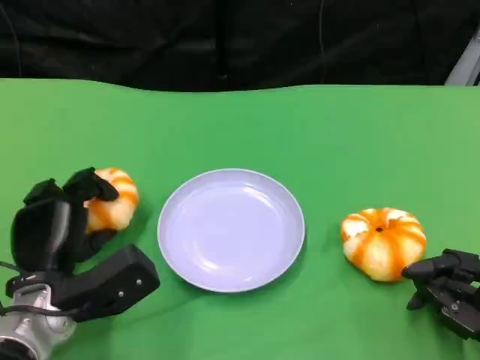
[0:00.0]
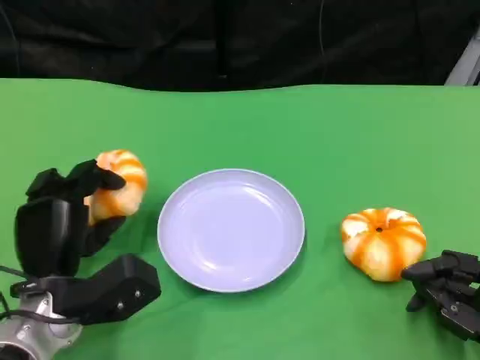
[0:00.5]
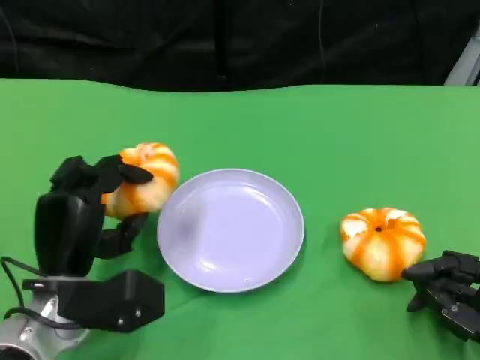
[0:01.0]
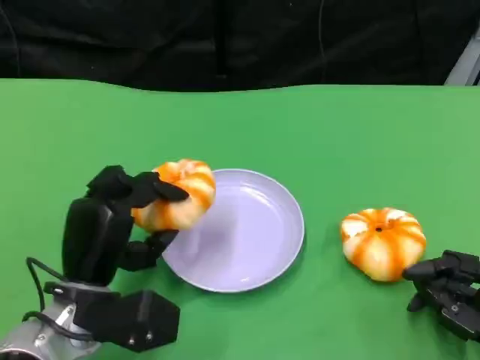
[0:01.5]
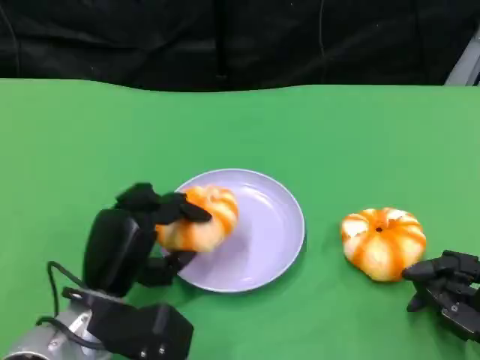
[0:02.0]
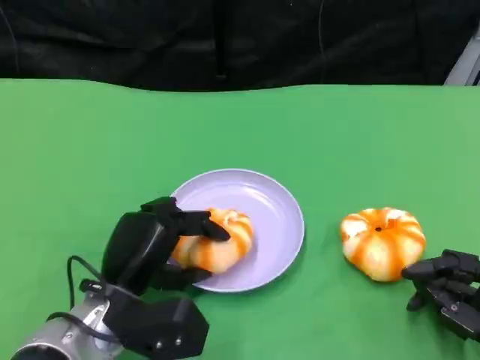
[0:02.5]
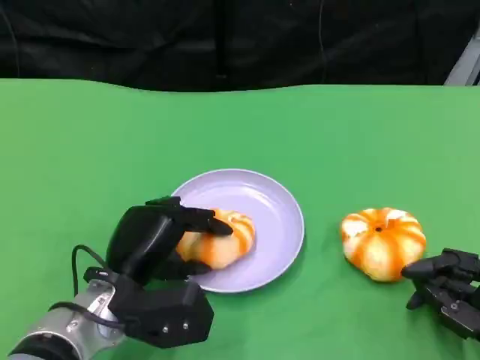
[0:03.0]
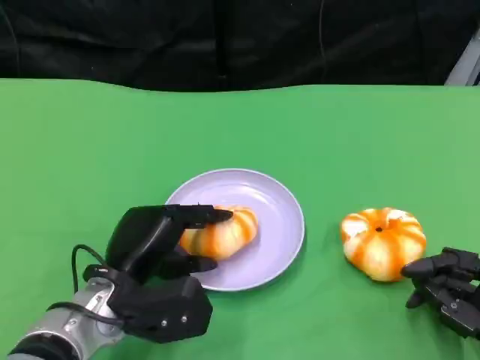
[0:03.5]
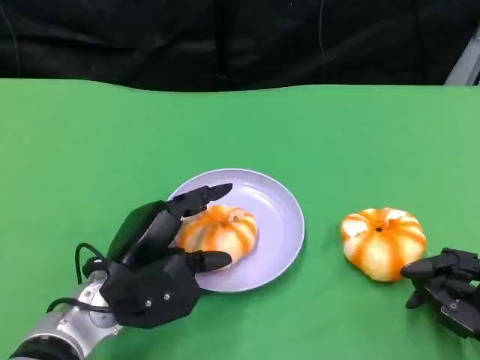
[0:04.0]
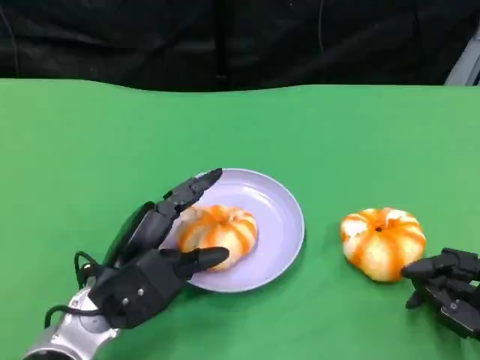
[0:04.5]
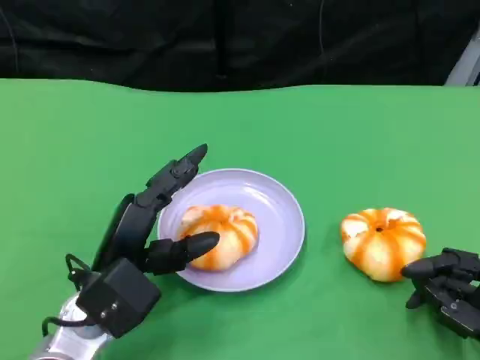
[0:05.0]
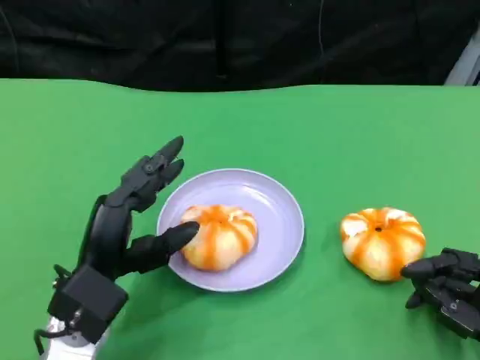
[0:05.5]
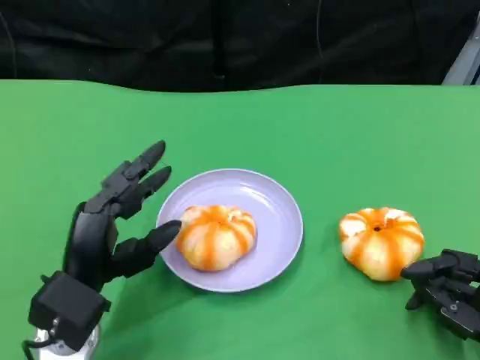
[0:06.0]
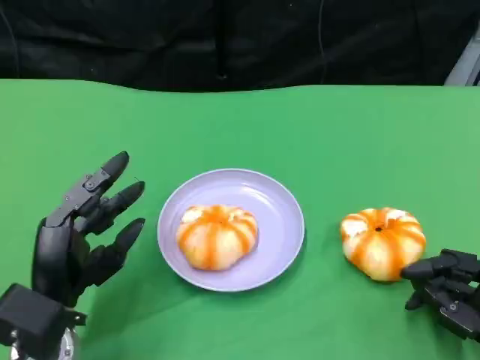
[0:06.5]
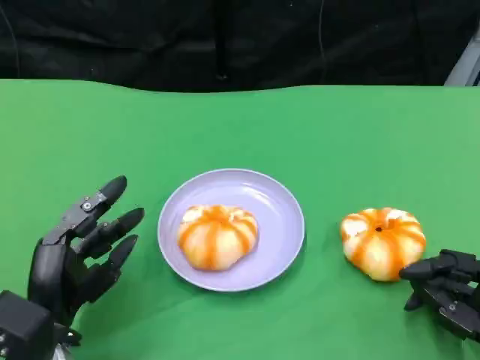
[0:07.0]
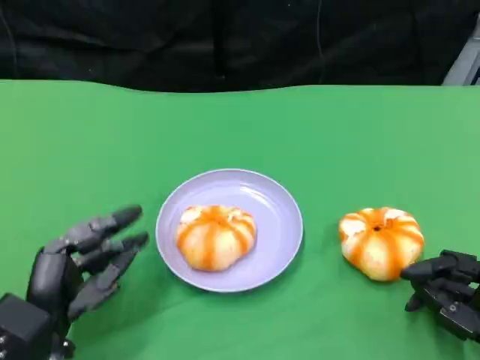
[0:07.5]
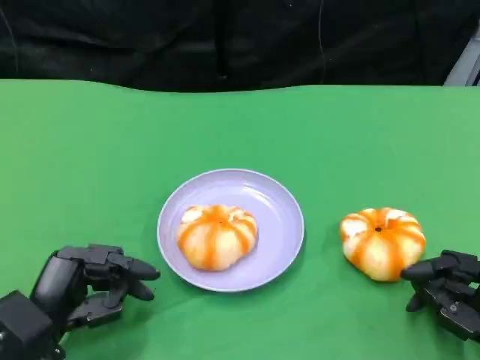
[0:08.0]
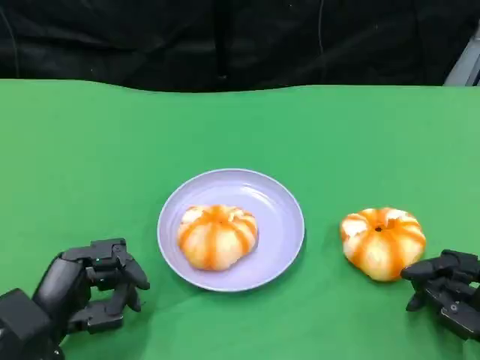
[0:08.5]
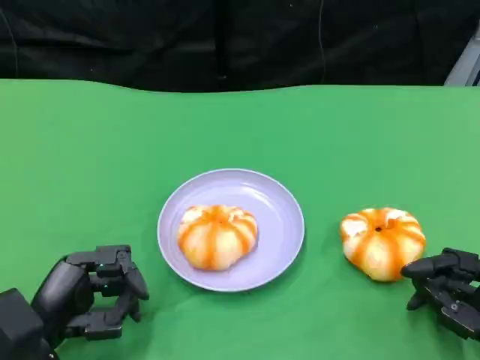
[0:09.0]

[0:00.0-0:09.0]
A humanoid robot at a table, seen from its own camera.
Task of the whole recording: Grasp the bread from the table and place it into the plate.
0:00.0 to 0:02.0: The left hand changes place by approximately 5 cm.
0:04.5 to 0:07.0: The left hand heads to the left, covering approximately 5 cm.

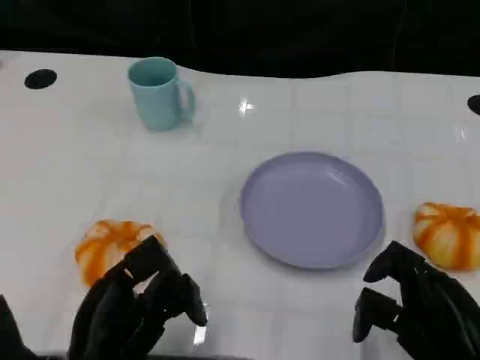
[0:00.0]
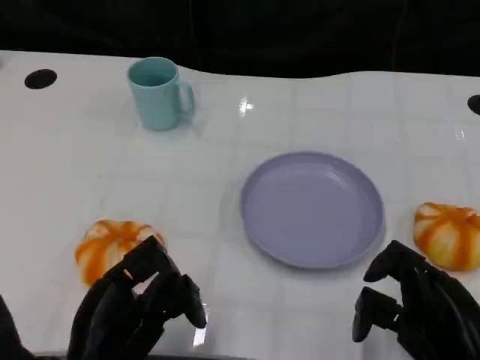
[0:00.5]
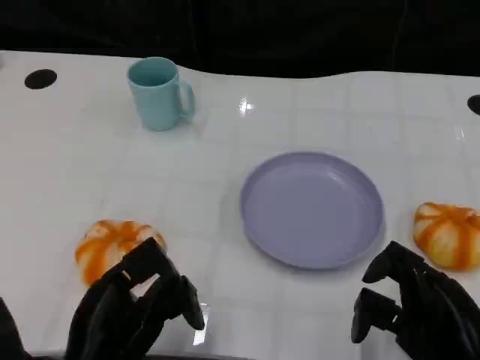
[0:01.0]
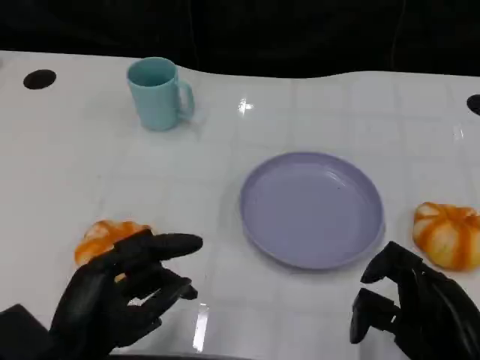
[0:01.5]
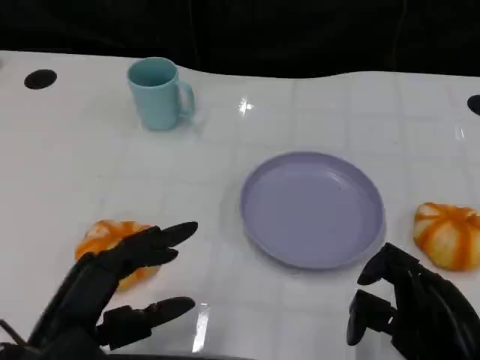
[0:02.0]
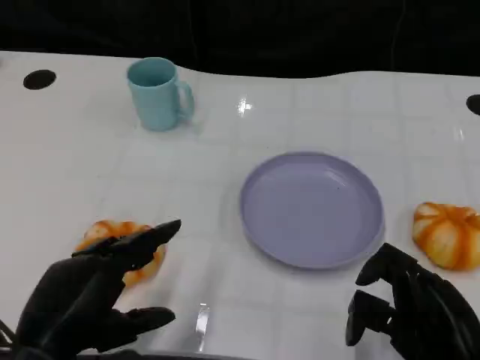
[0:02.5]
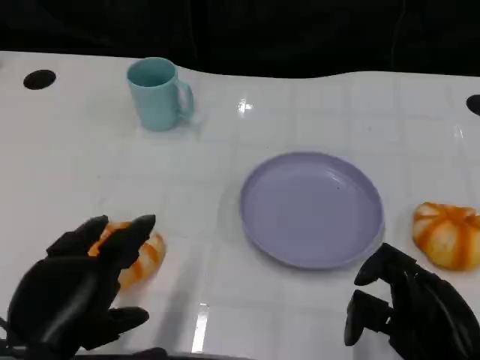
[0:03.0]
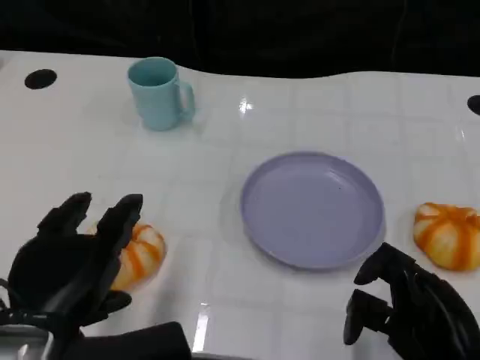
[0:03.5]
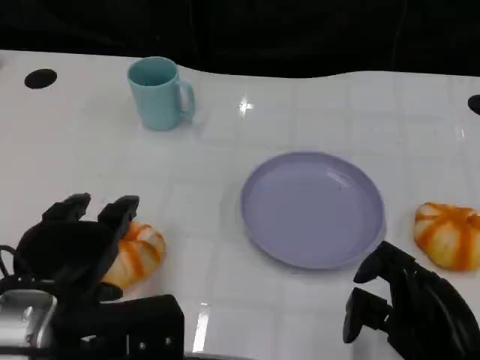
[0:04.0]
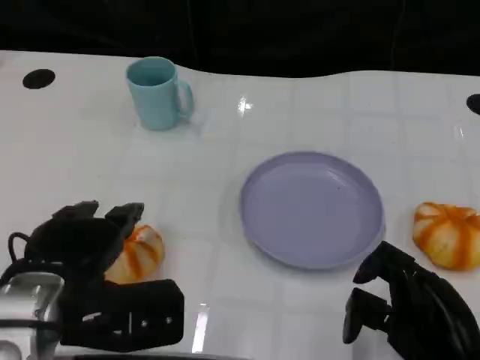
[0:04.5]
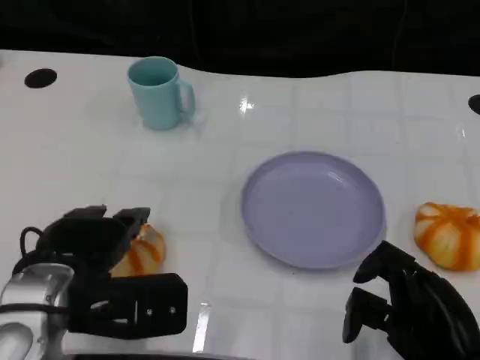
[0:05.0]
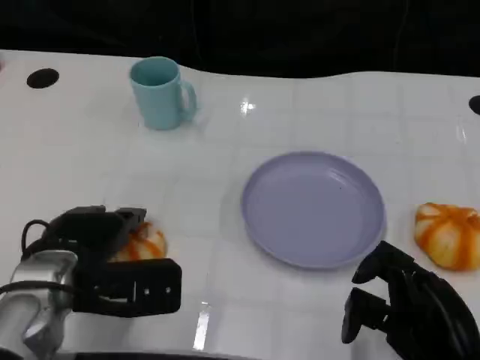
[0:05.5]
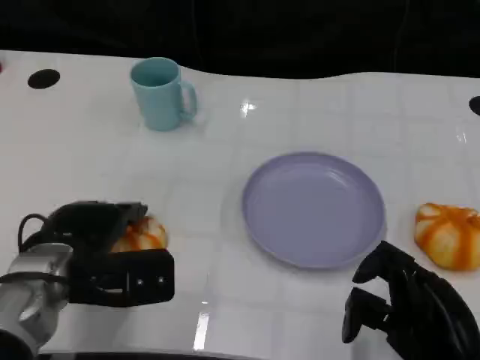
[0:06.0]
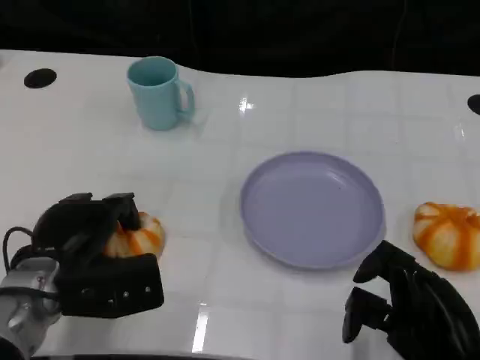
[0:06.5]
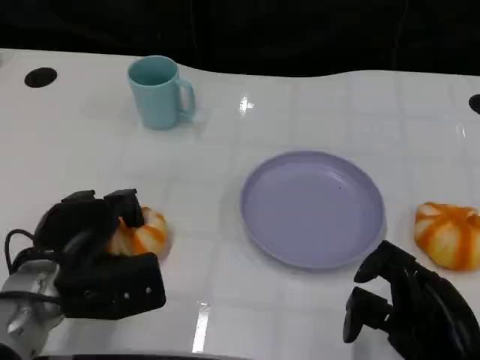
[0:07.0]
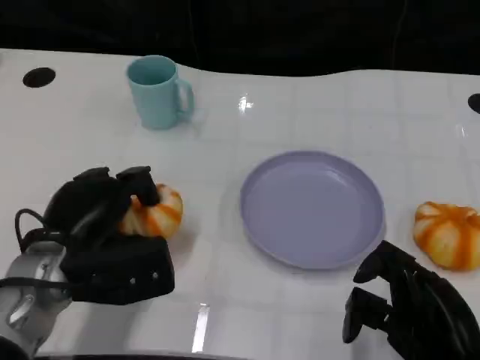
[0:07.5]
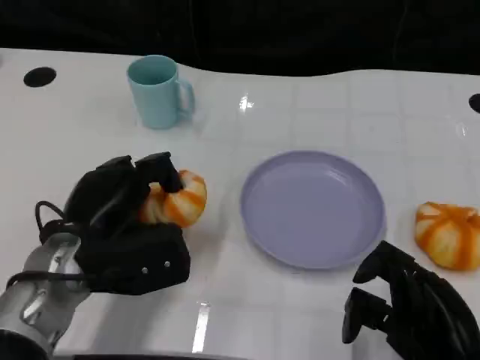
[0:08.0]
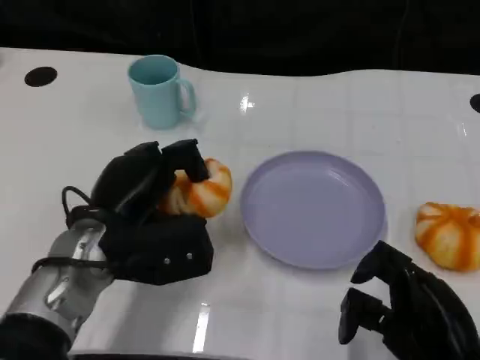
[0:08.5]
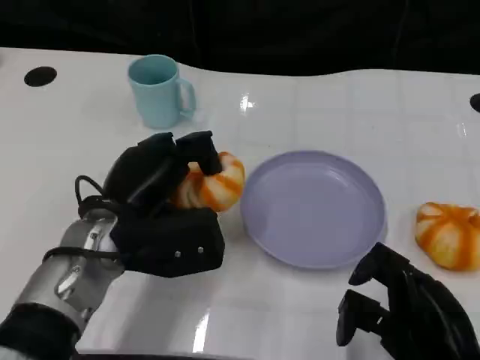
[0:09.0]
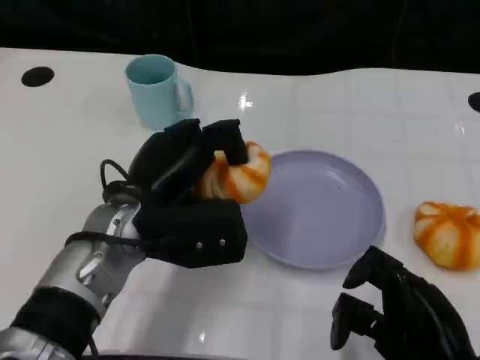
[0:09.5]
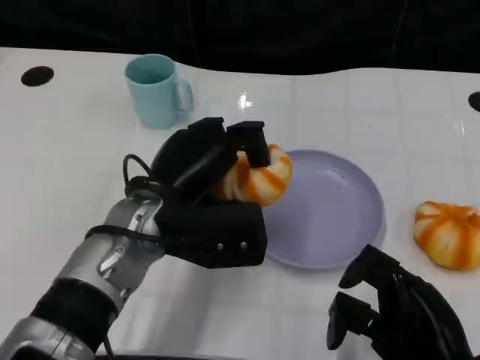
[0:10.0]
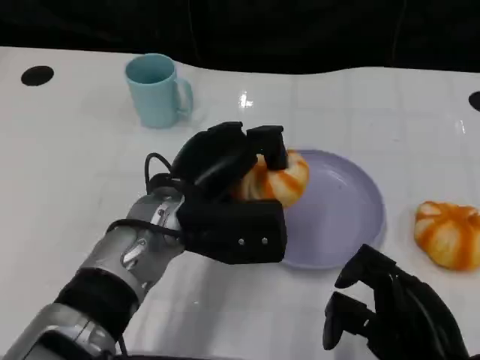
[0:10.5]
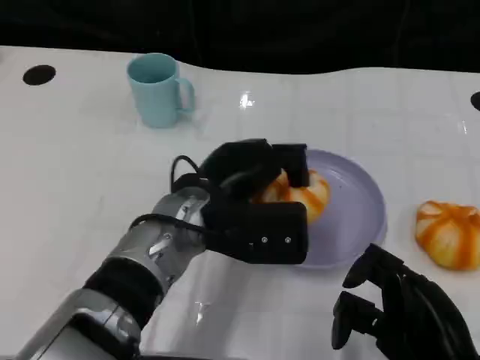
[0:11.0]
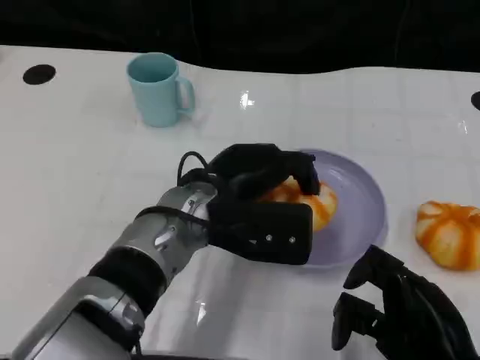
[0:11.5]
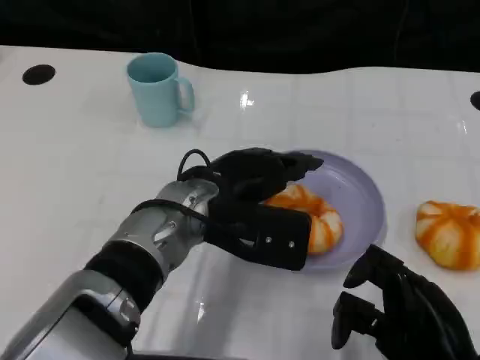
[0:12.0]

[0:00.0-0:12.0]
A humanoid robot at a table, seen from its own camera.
Task of the whole recording: Grasp the bread from the table and place it into the plate.
0:00.0 to 0:02.0: The left hand heads upward, covering about 5 cm.
0:02.0 to 0:04.0: The left hand moves some 5 cm.
0:04.0 to 0:06.0: The left hand is displaced forward and downward by about 10 cm.
0:08.0 to 0:10.0: The left hand moves to the right, approximately 5 cm.

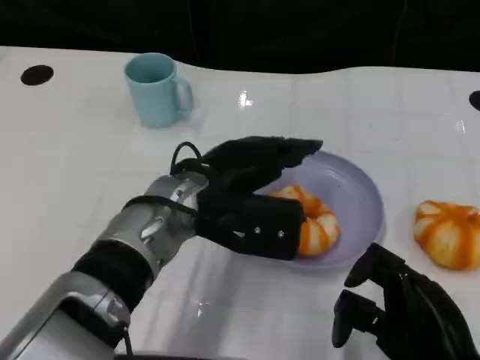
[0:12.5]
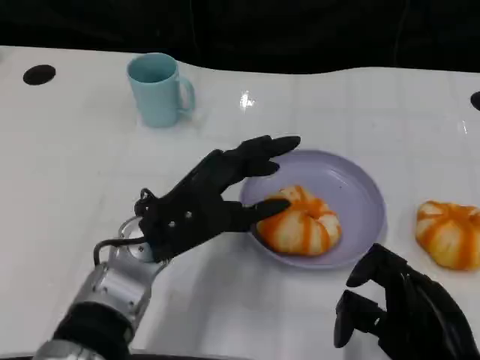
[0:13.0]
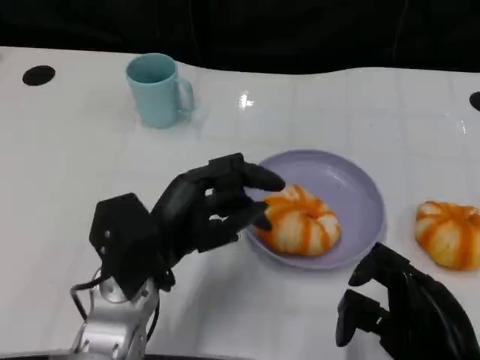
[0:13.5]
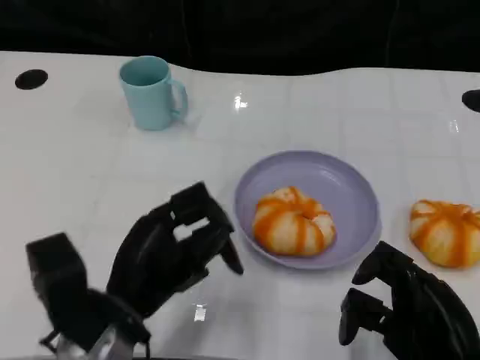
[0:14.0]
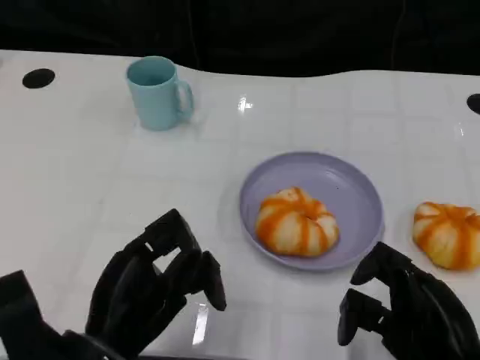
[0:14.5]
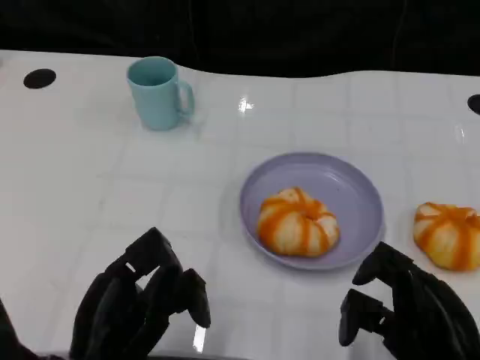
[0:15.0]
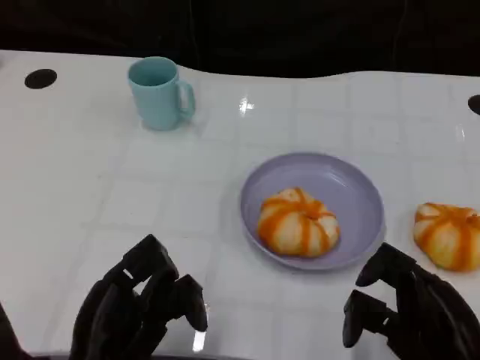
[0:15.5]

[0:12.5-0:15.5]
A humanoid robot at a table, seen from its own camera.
Task of the whole recording: Grasp the bread from the table and place it into the plate.
0:12.5 to 0:14.0: The left hand travels backward, to the left and downward by some 15 cm.
0:14.0 to 0:15.5: The left hand moves approximately 5 cm.

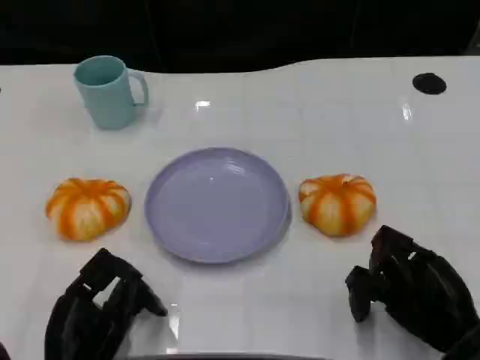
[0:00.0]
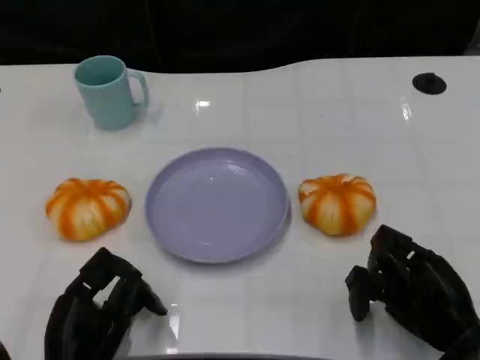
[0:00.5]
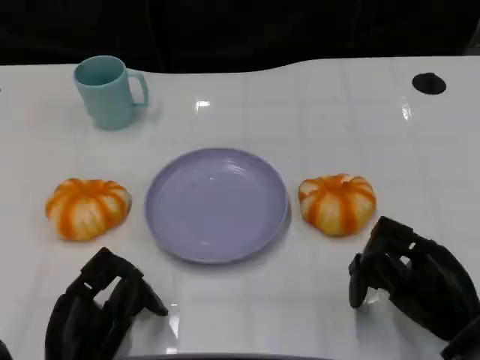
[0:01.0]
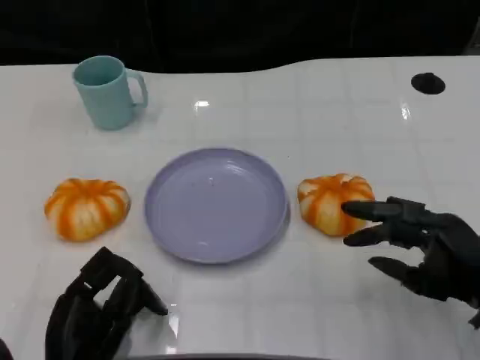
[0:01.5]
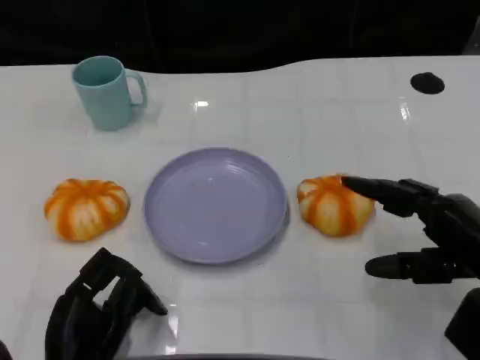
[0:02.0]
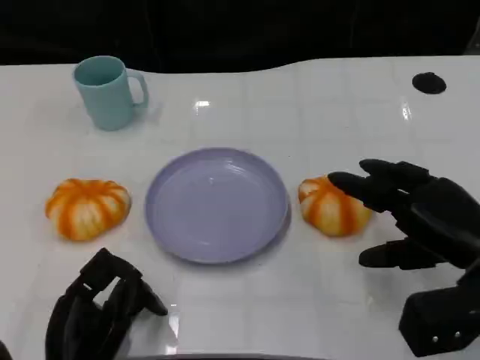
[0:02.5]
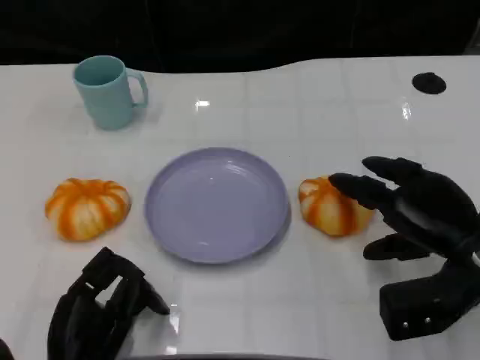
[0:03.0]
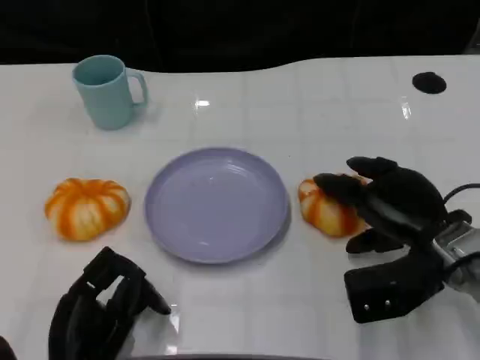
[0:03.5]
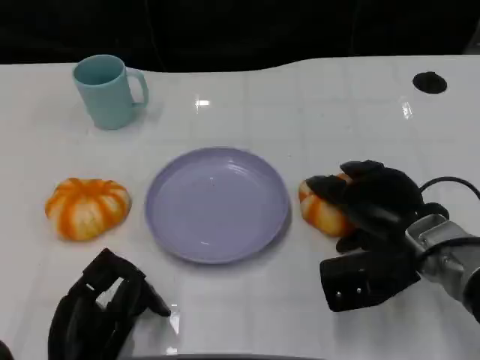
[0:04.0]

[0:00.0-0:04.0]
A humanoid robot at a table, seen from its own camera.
Task of the whole recording: Grasp the bread from the table and place it into the plate.
0:00.0 to 0:02.0: The right hand is displaced upward by approximately 5 cm.
0:02.0 to 0:04.0: The right hand travels to the left and forward by about 10 cm.
